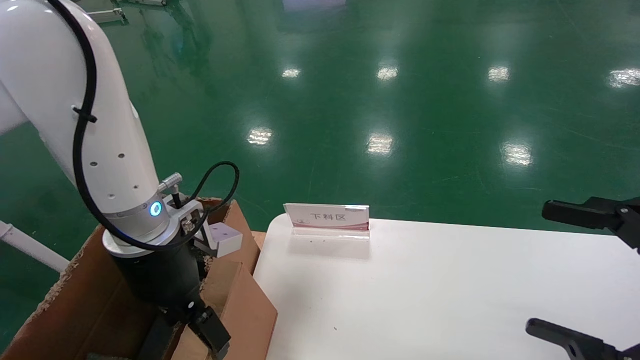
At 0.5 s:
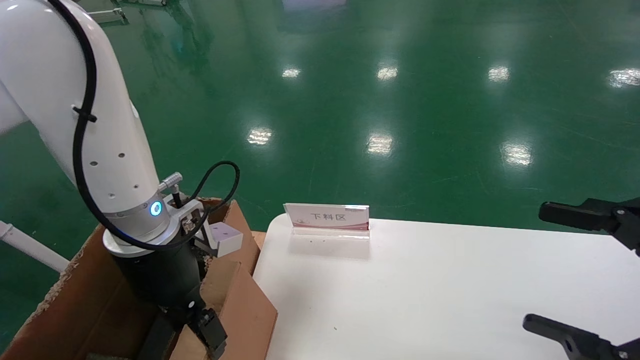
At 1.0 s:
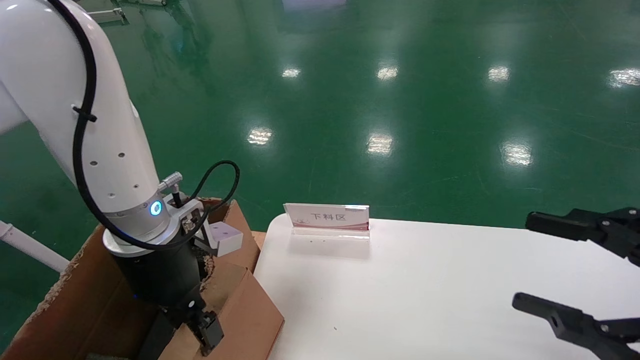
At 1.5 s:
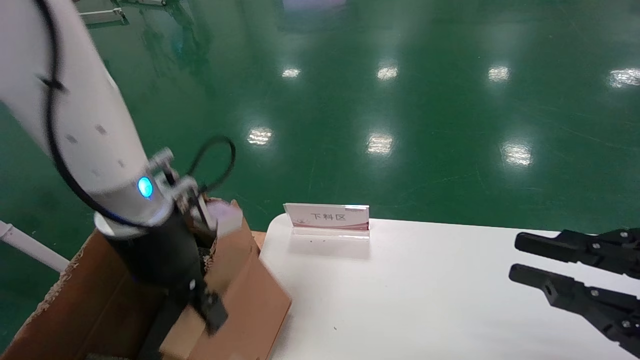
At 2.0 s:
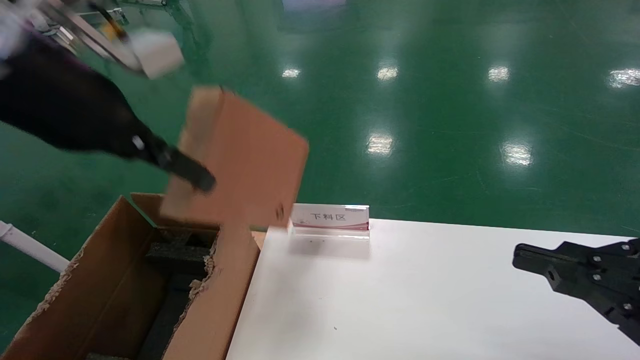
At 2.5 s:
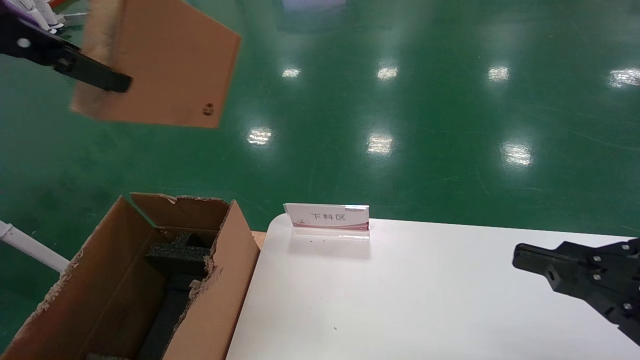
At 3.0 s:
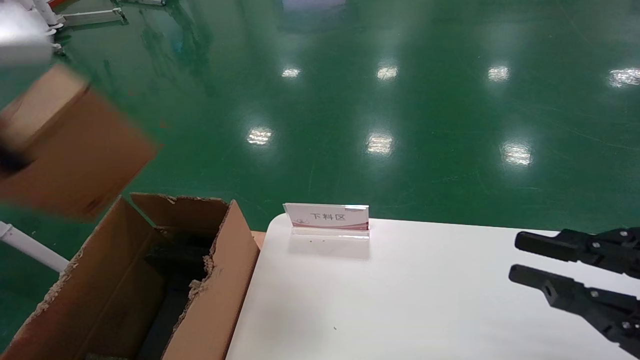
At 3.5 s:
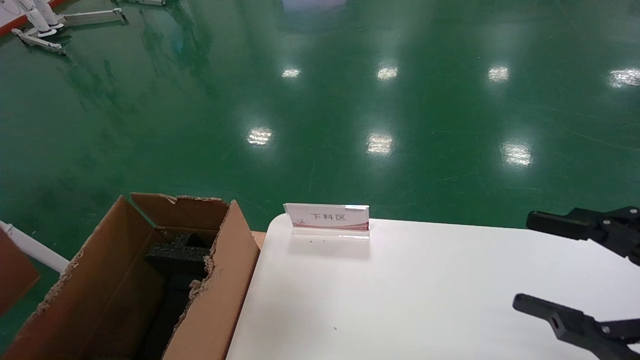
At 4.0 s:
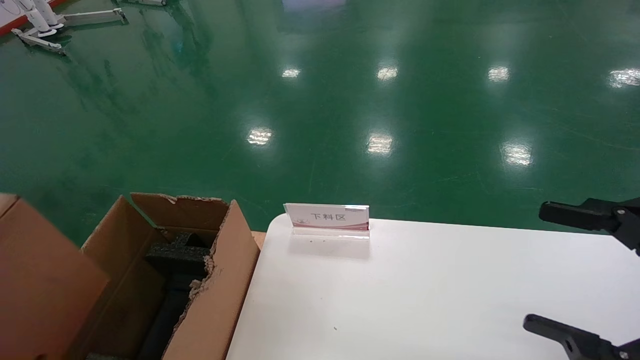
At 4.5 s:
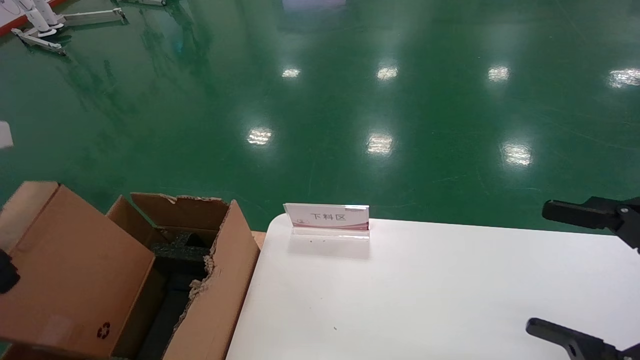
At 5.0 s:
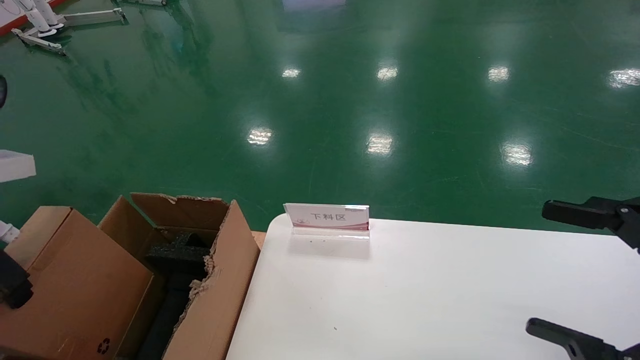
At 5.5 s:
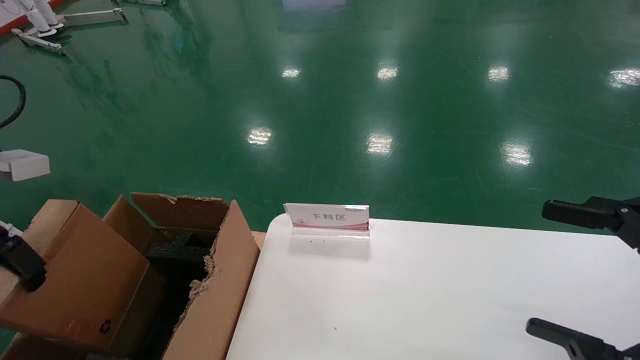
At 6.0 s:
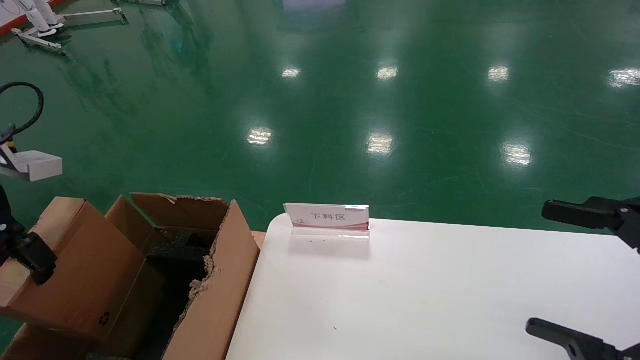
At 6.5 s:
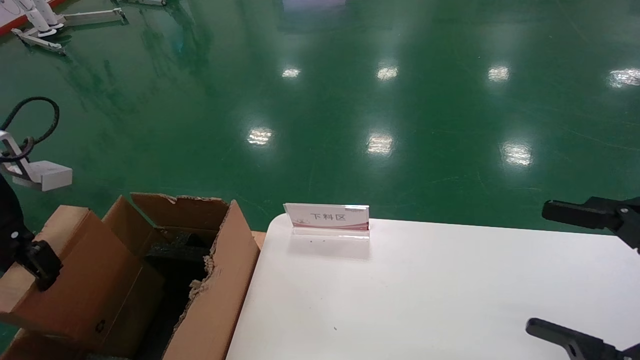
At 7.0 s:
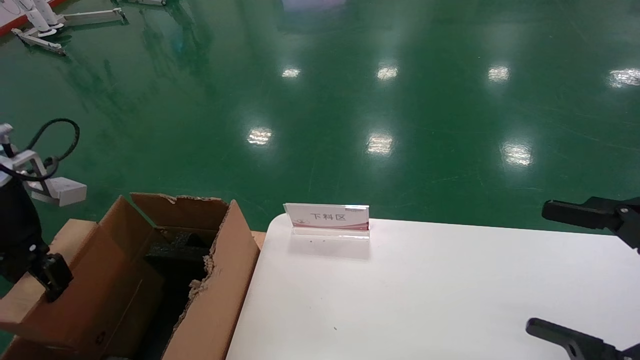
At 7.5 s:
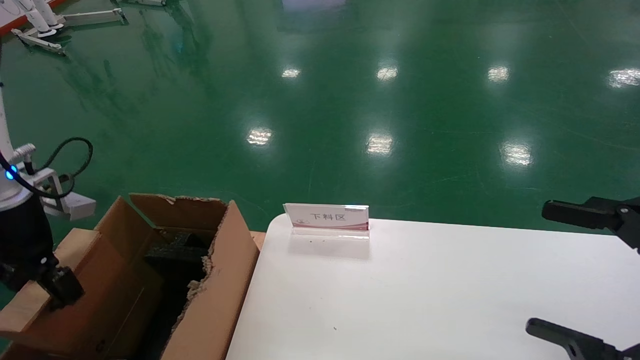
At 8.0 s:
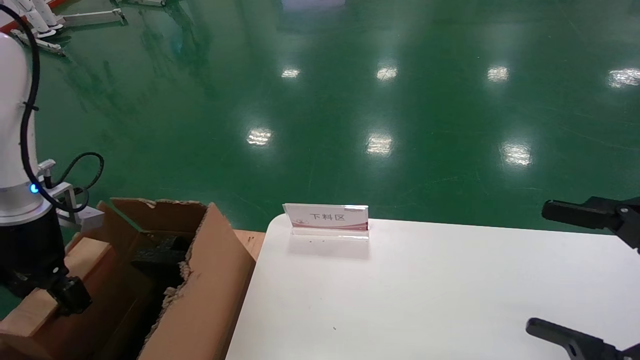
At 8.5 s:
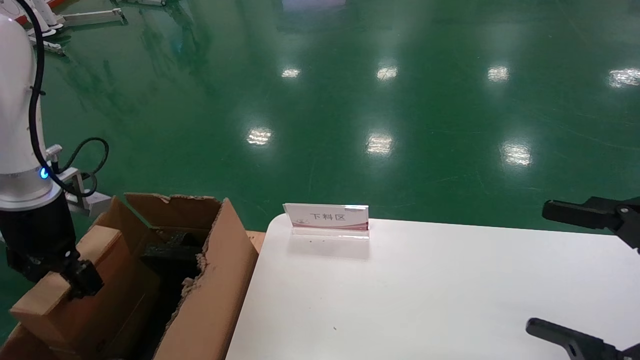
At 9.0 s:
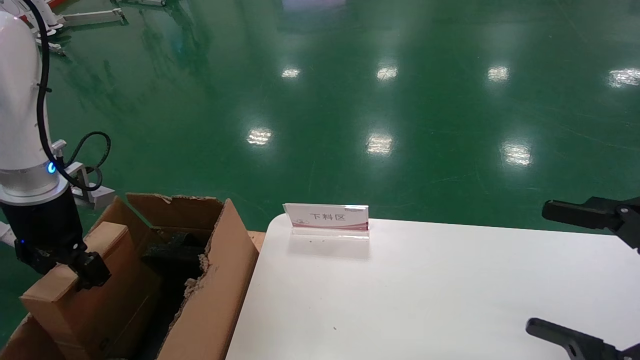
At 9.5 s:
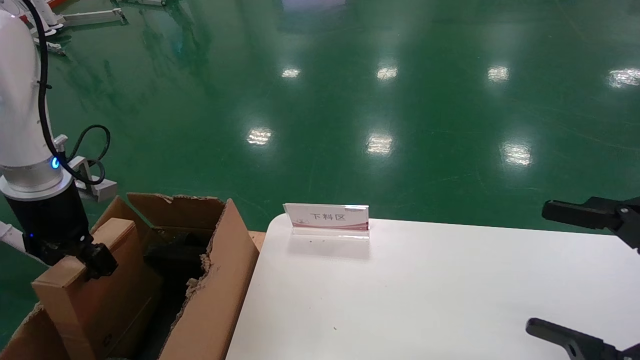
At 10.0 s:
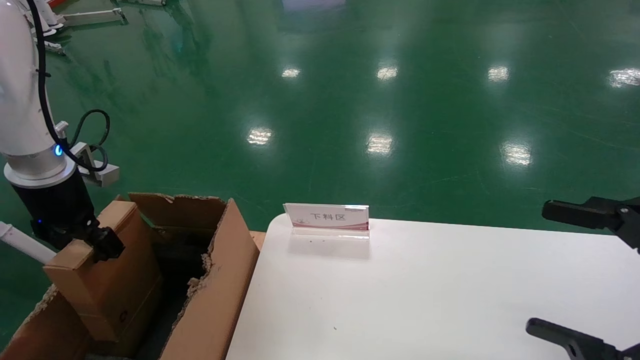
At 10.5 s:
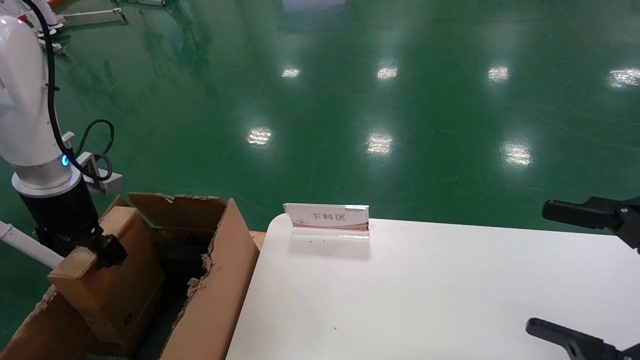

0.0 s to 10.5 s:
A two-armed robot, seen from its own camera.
Task of the whole recording: pick up the small cardboard box and load it into the large cardboard box.
0.0 to 2.0 s: The right gripper closes its fingers, while the left gripper moves upward, roughly 20 cm, and closes.
2.0 to 4.0 s: The right gripper opens its fingers. The left gripper heads backward and to the left, covering some 10 cm.
4.0 to 6.5 s: The left gripper shifts roughly 20 cm forward, downward and to the left.
6.5 to 8.5 s: The left gripper moves downward and forward, some 10 cm.
8.5 to 10.5 s: The grippers move only a little.

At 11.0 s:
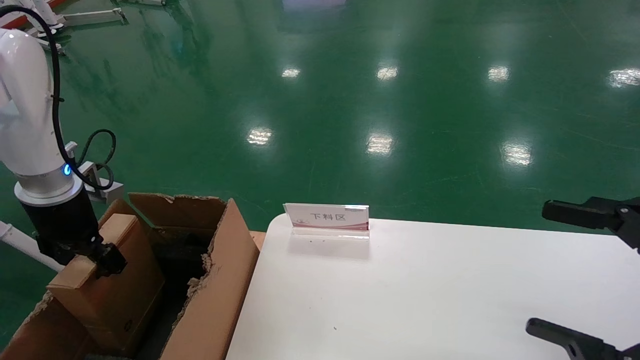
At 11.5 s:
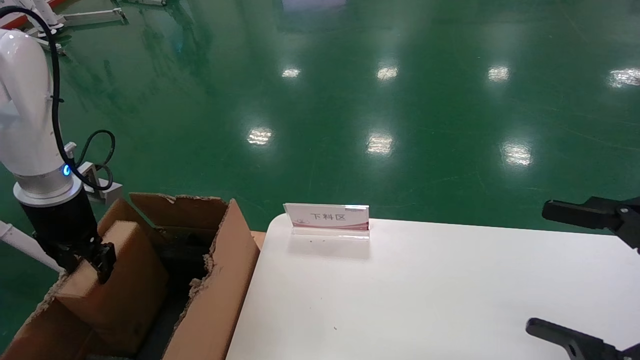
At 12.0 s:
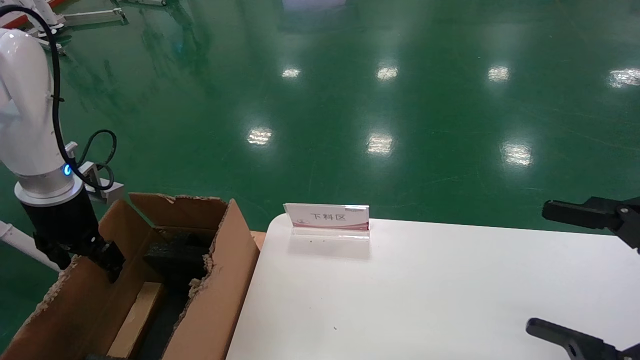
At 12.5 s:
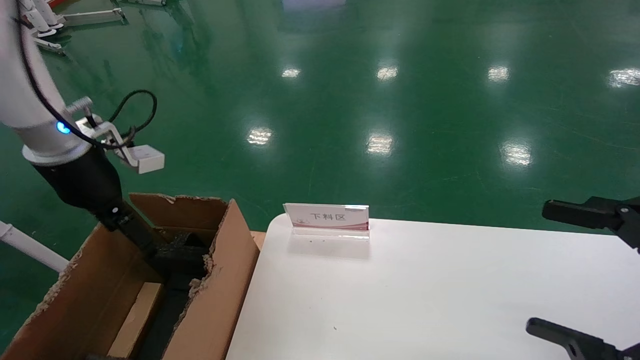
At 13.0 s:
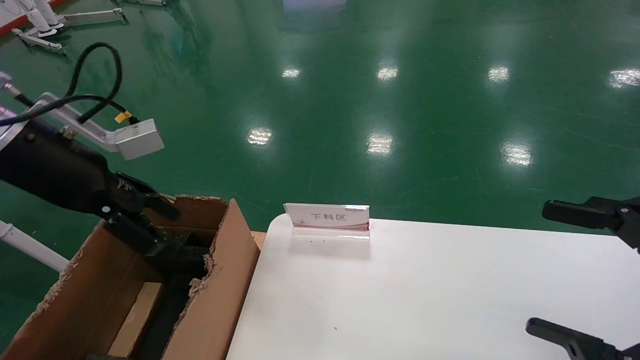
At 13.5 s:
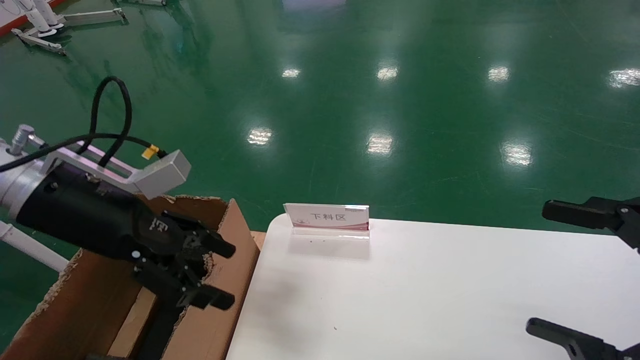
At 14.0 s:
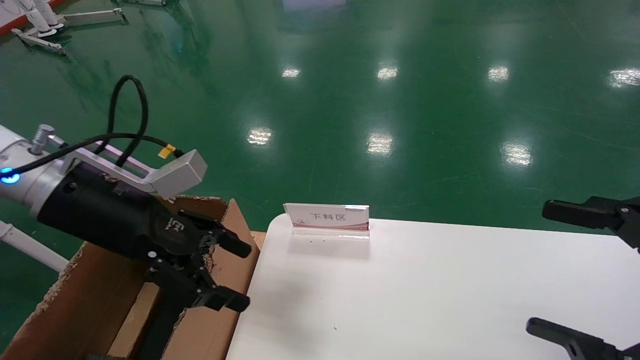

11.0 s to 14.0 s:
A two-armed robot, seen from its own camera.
Task of the whole recording: pick up the small cardboard box and load it into the large cardboard box.
11.0 to 12.5 s: The left gripper travels upward and to the right by approximately 10 cm, and opens.
12.5 to 14.0 s: The left gripper moves to the right and backward, roughly 10 cm.
